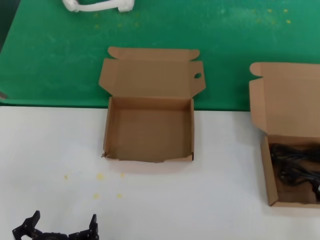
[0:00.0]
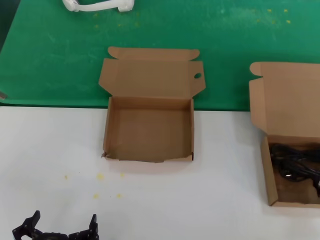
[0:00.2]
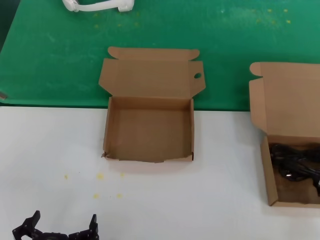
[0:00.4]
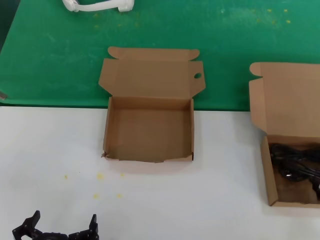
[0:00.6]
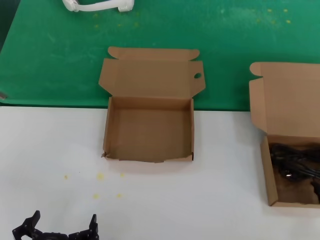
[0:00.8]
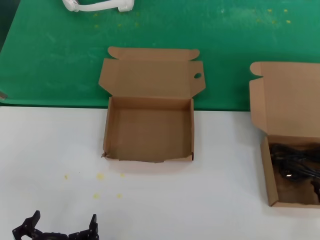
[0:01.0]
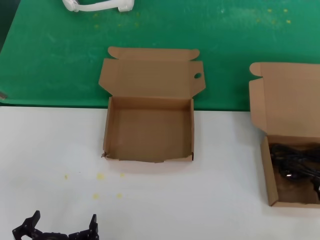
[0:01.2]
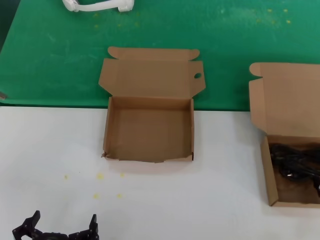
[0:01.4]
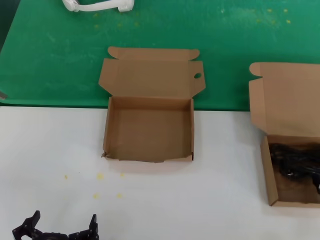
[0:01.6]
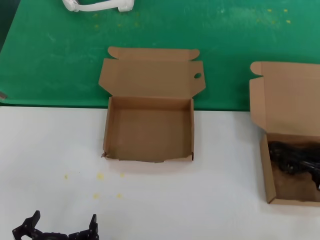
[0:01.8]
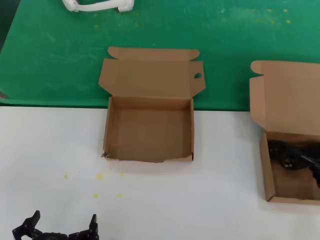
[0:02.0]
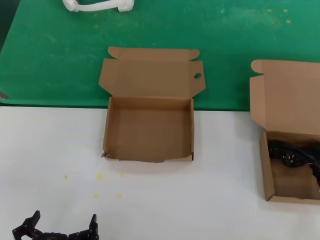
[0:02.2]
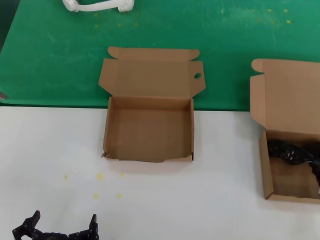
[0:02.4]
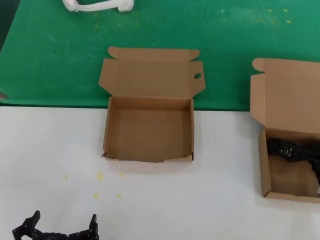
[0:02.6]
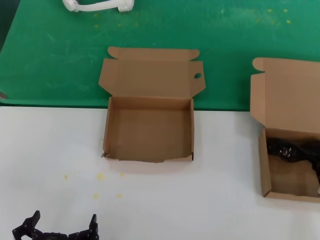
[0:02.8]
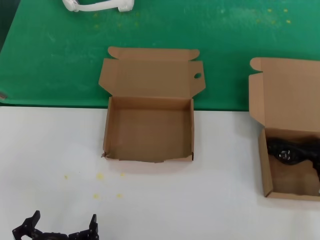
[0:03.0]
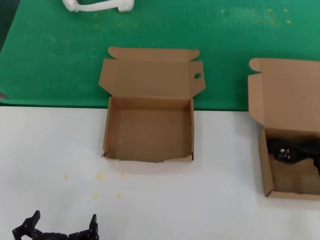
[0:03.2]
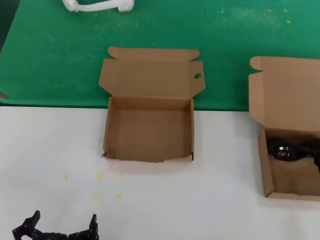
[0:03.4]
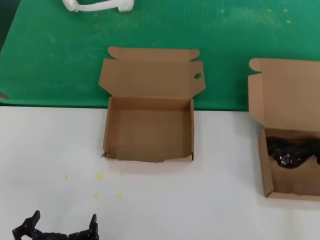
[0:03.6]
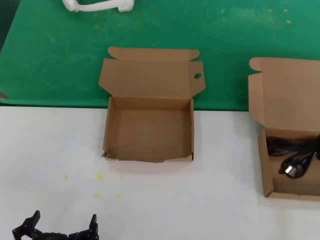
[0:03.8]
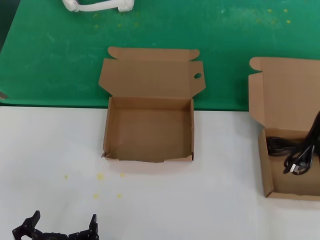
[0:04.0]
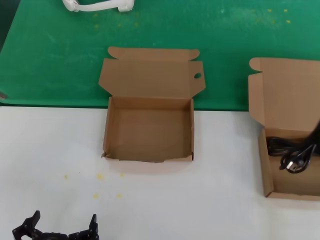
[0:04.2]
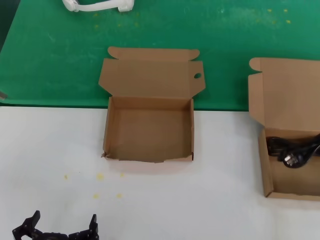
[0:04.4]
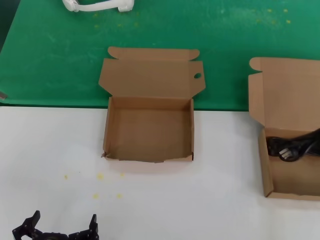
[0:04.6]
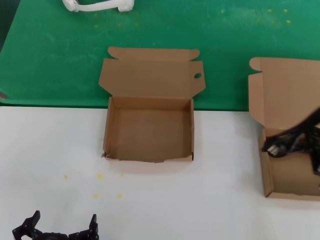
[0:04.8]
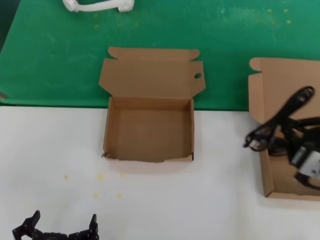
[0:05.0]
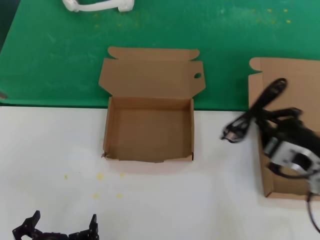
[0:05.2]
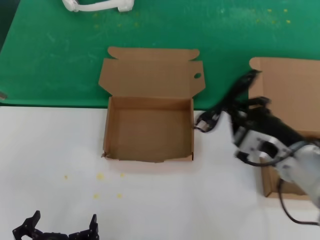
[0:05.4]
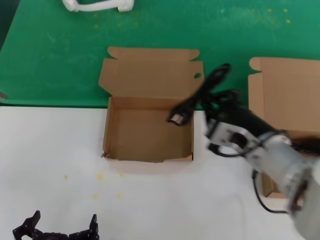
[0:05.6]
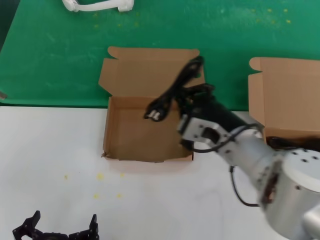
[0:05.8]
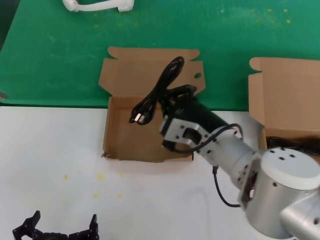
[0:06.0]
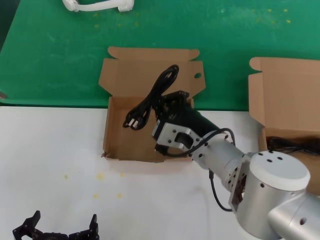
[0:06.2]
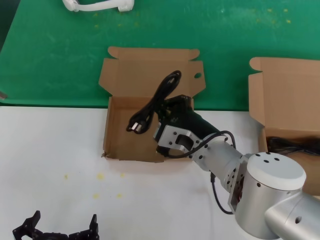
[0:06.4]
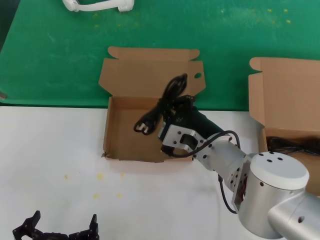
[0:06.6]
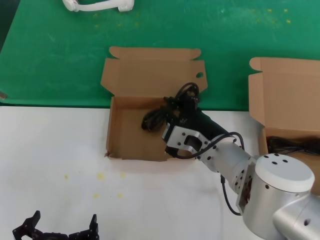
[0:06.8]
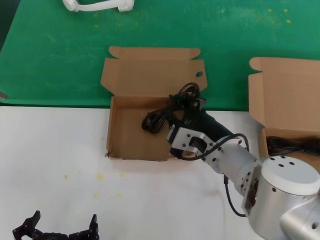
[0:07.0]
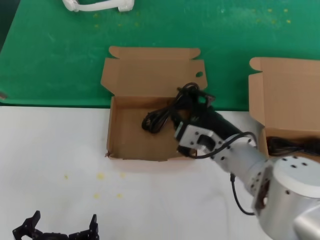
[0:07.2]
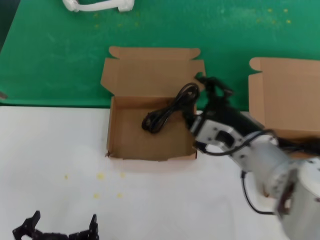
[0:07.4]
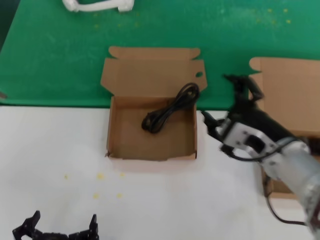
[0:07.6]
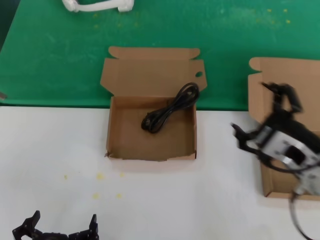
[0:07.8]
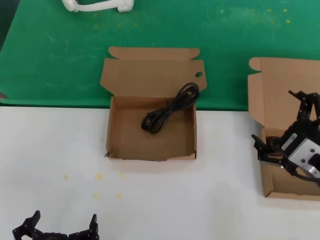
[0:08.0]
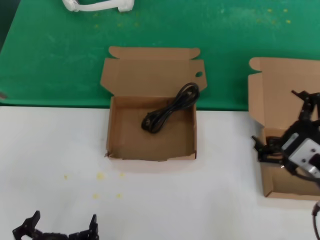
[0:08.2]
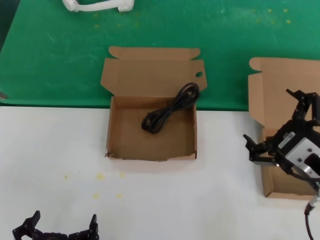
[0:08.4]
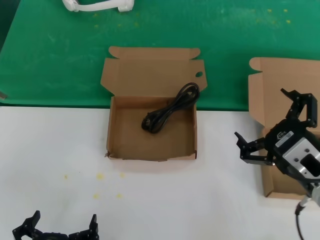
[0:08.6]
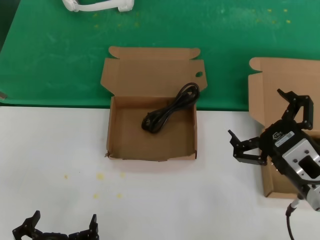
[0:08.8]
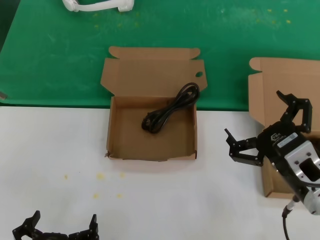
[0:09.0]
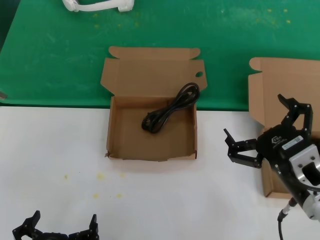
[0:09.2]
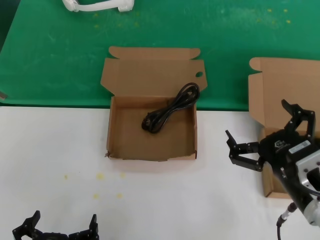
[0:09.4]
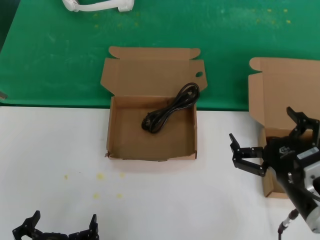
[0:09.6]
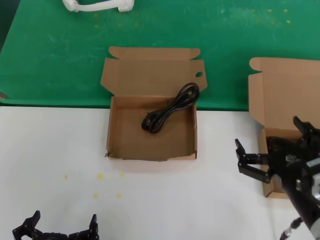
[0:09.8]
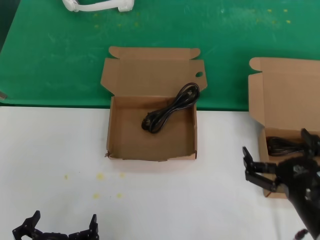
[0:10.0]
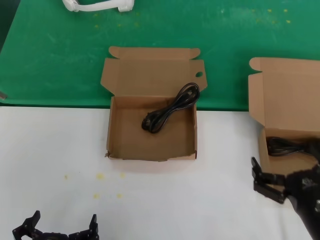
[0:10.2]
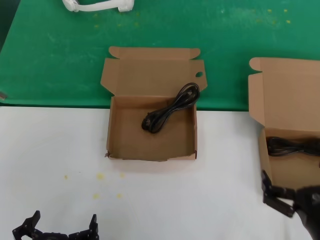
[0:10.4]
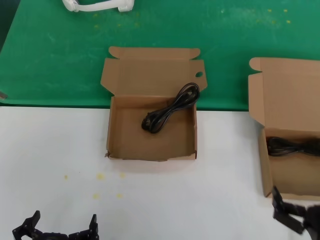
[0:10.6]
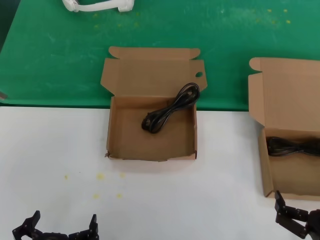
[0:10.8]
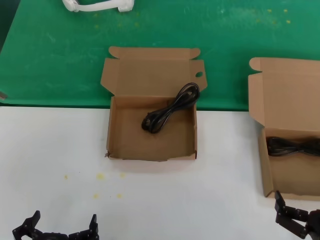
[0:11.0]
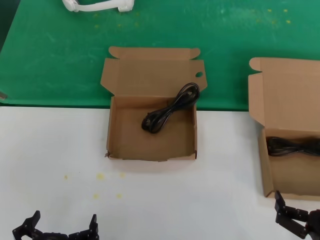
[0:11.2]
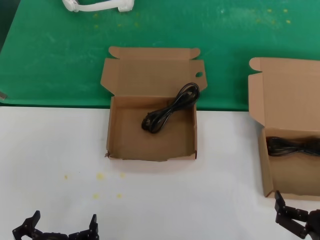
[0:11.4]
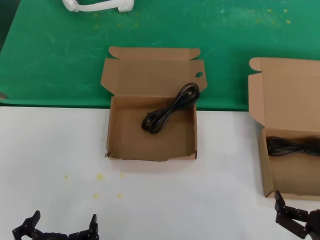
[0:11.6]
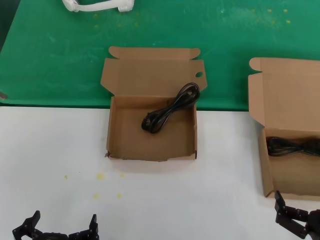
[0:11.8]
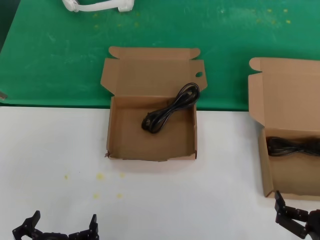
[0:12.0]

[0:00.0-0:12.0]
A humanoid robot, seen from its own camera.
Task of the whole recording: take the parts from the box containing them and put them into an empty box.
Step, 0:02.2 to 0:07.0: Place the data cable in the another box.
0:01.6 to 0:03.0: The hands make only small movements.
0:03.0 to 0:04.4: The right hand goes about 10 cm backward and upward.
0:04.4 to 0:06.0: The right hand travels to the left and forward by approximately 25 cm.
0:06.0 to 0:07.6: The right hand moves to the right, roughly 10 cm.
0:07.6 to 0:09.0: The right hand heads to the right and backward, covering about 10 cm.
0:09.0 to 0:10.4: The right hand moves downward, some 10 cm.
0:10.4 to 0:12.0: The hands make only small movements.

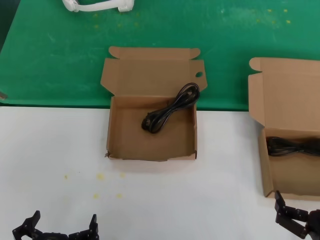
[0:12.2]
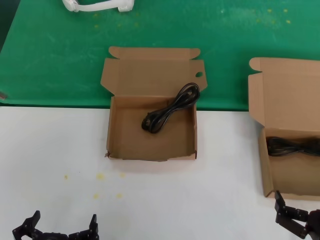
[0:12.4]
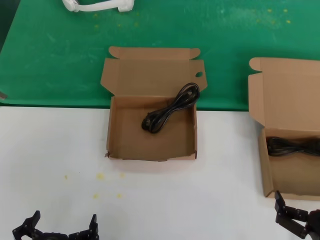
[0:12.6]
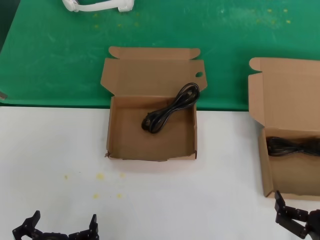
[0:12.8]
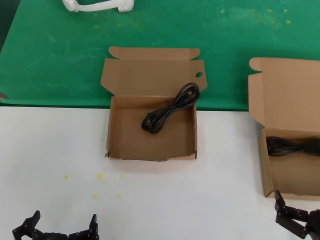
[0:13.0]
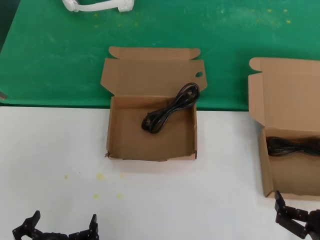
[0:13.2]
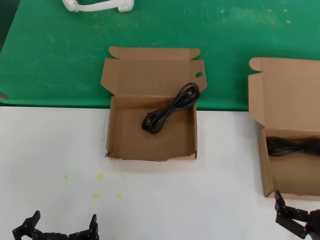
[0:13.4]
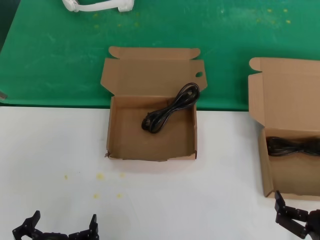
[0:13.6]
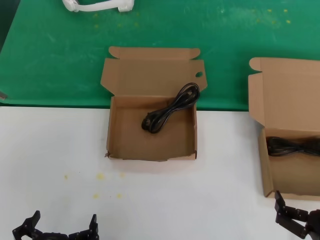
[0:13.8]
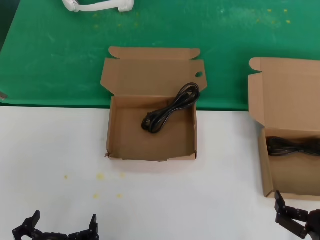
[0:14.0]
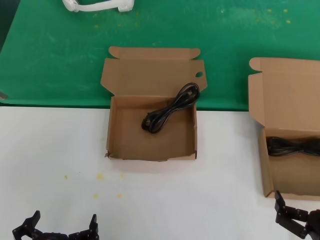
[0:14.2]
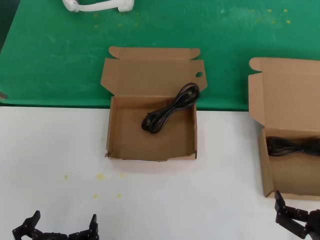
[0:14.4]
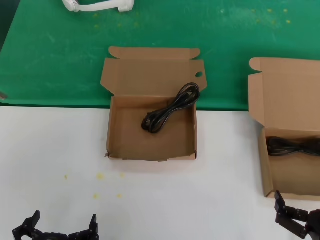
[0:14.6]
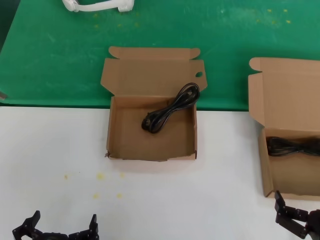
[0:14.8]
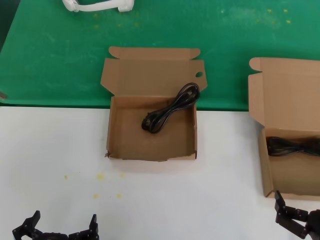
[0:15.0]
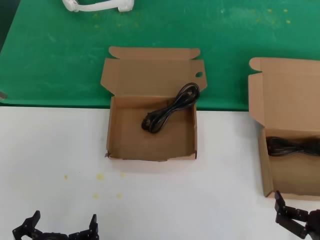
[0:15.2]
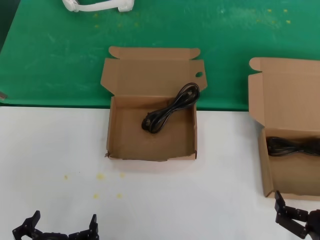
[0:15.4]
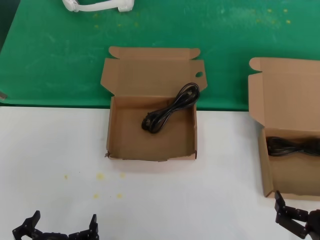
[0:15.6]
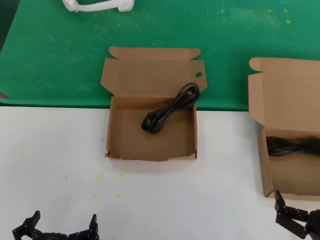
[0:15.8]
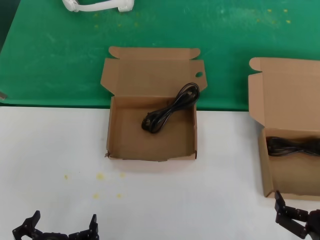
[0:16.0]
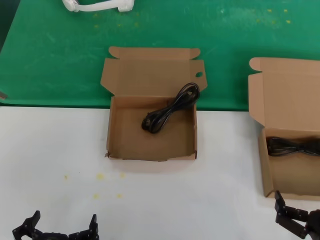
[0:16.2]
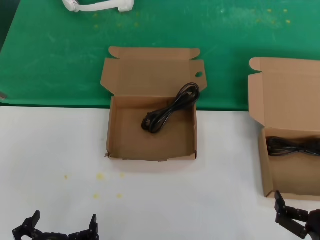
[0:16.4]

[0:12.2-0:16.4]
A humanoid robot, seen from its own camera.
Task of the whole recording: take the parts from the box containing them and put them into an empty box.
0:12.2 to 0:16.4: The two hands keep their place.

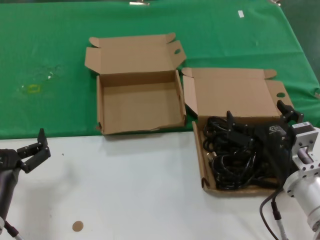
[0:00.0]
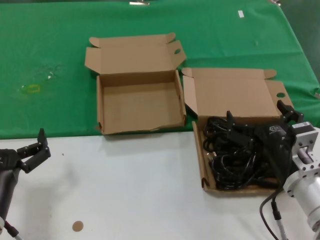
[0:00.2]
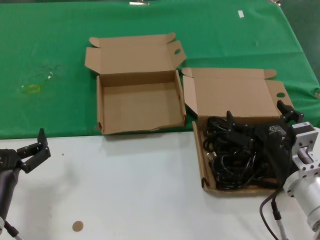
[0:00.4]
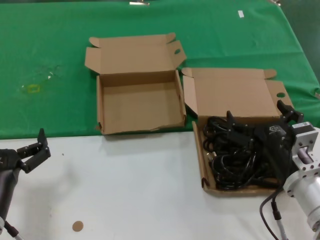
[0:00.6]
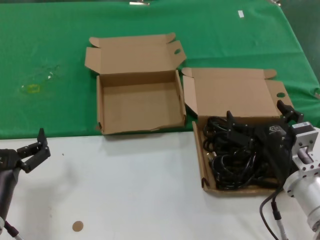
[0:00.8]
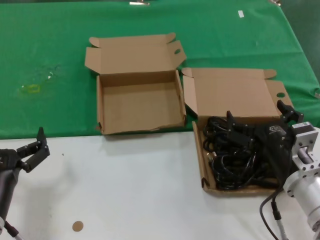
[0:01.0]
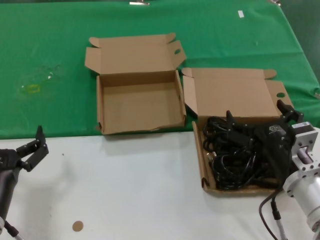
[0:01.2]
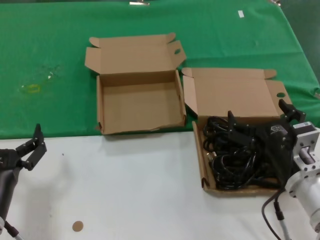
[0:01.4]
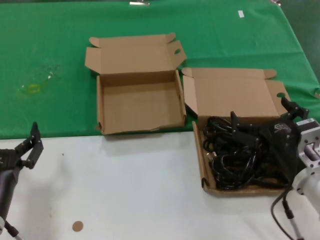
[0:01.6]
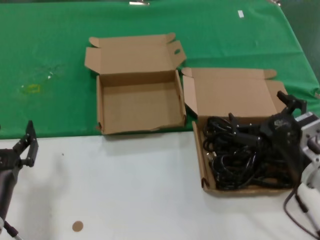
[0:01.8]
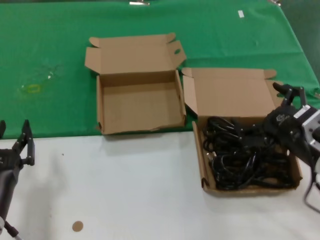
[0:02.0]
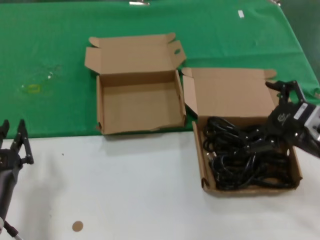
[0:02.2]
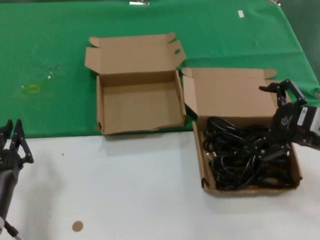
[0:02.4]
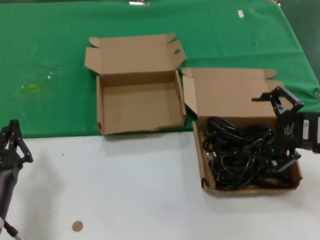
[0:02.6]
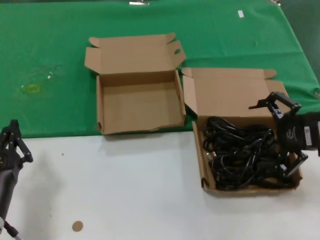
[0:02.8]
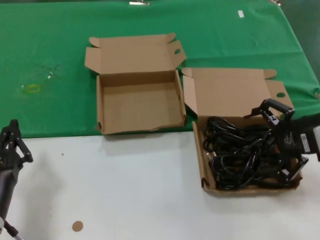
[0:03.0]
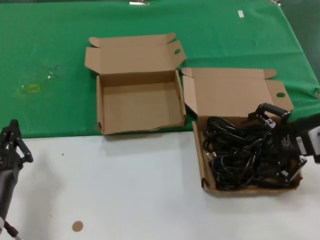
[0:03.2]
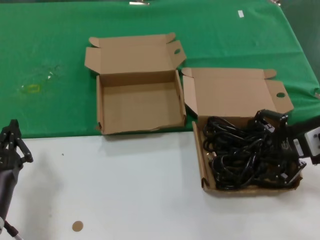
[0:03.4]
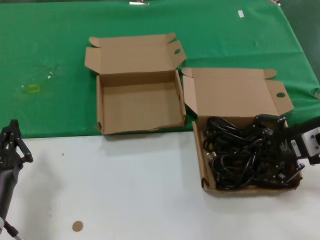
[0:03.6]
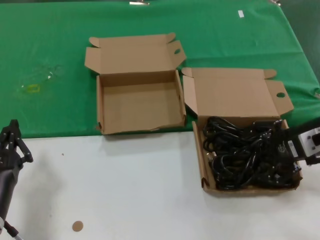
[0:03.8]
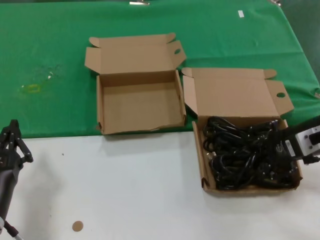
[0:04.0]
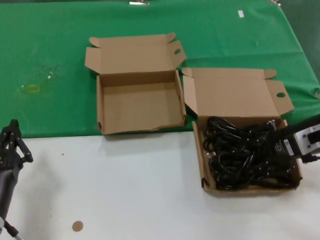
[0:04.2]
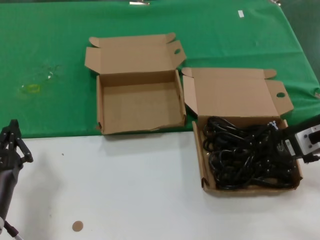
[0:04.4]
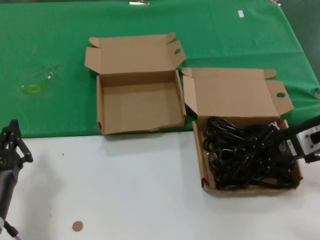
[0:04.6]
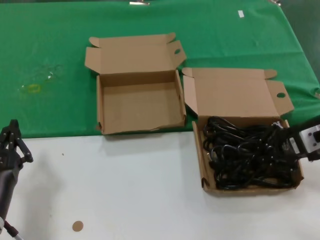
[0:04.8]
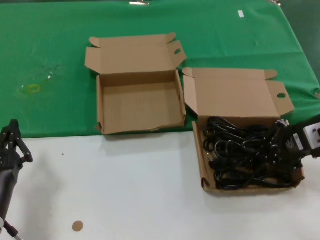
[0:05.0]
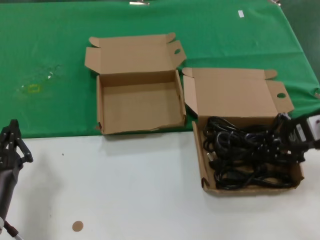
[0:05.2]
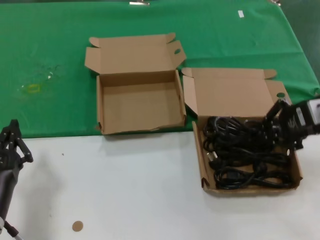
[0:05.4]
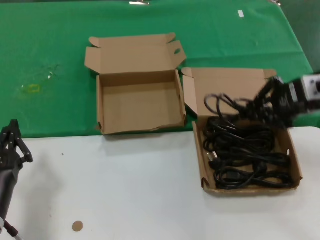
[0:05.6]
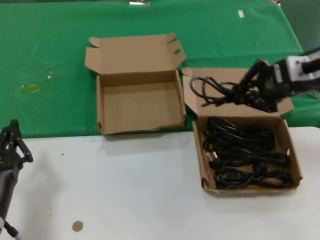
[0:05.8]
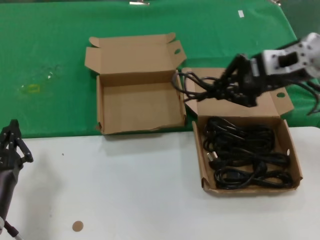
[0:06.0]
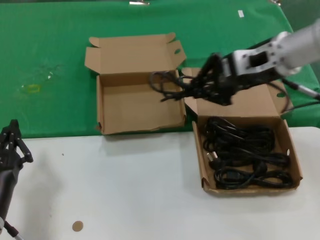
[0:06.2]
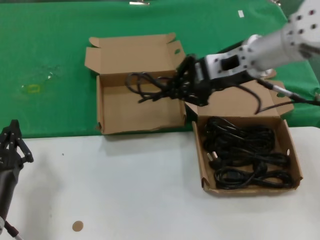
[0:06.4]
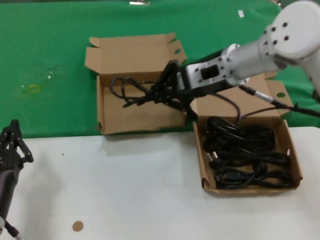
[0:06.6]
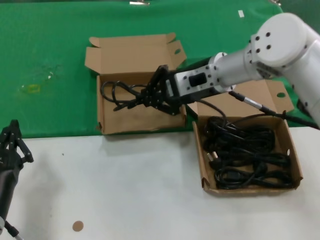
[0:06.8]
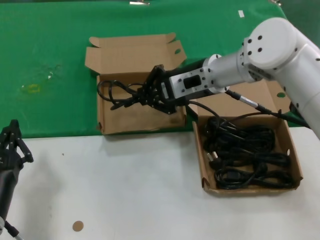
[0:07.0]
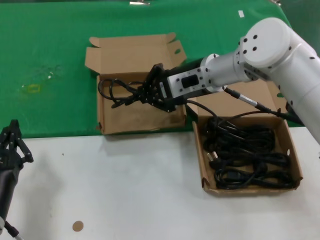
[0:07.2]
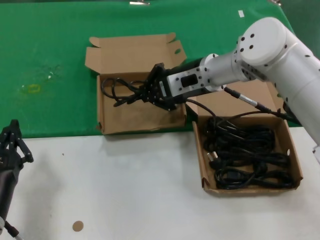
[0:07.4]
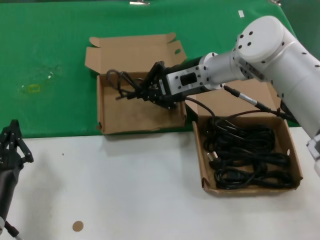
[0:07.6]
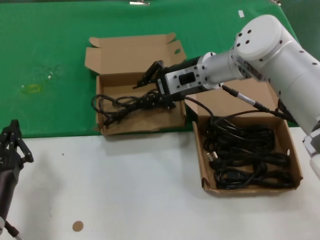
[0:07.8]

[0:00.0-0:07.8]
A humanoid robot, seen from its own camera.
Task of the whole recording: take the parts from the box containing them and put them into an empty box.
Step, 0:00.0 to 0:04.8: Grasp the data cable.
0:00.0 to 0:01.6: The two hands keep their place.
0:01.6 to 0:03.2: The right hand heads upward, to the right and forward, covering roughly 20 cm.
0:03.2 to 0:04.6: The right hand shifts by about 5 cm.
0:04.6 to 0:06.2: The right hand moves upward, to the left and forward, roughly 15 cm.
0:06.2 to 0:07.8: The right hand is displaced to the left, downward and forward by some 15 cm.
